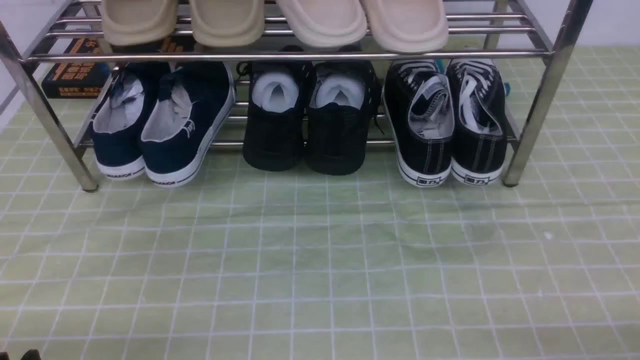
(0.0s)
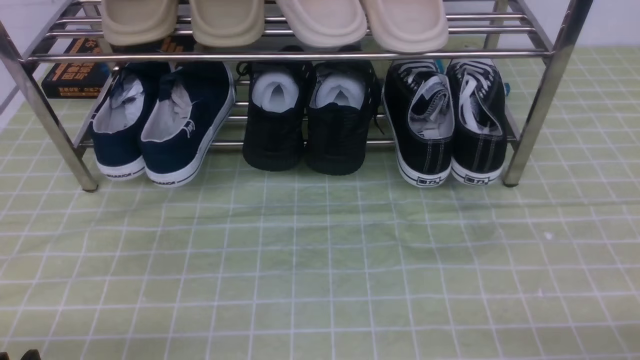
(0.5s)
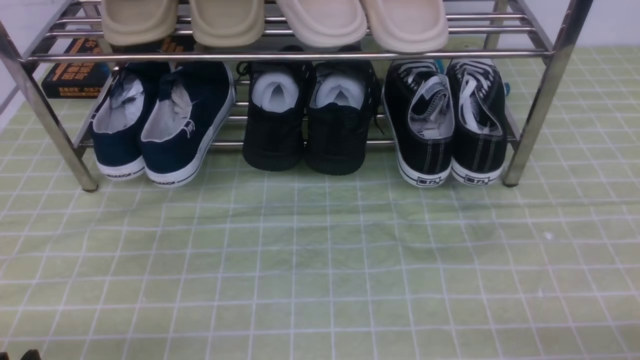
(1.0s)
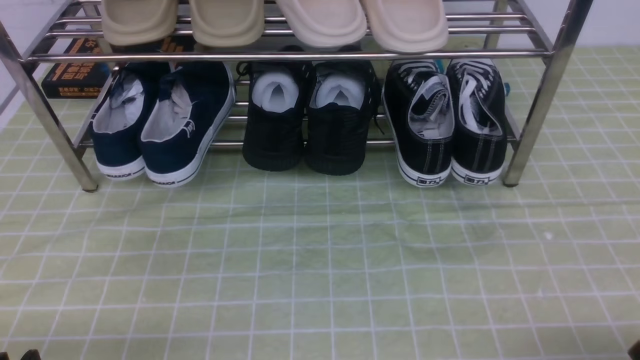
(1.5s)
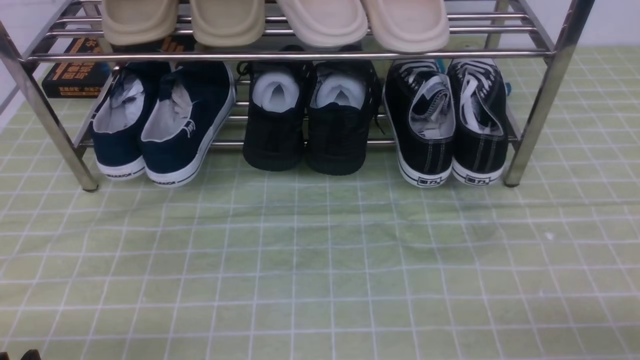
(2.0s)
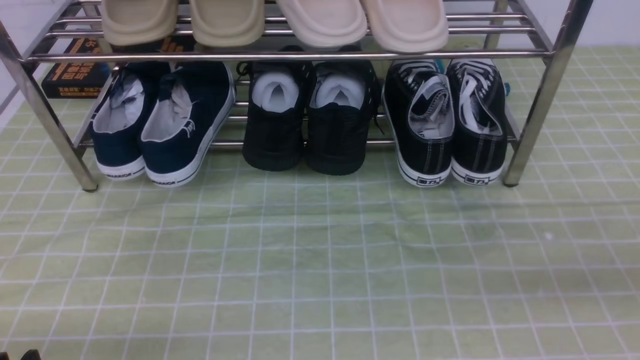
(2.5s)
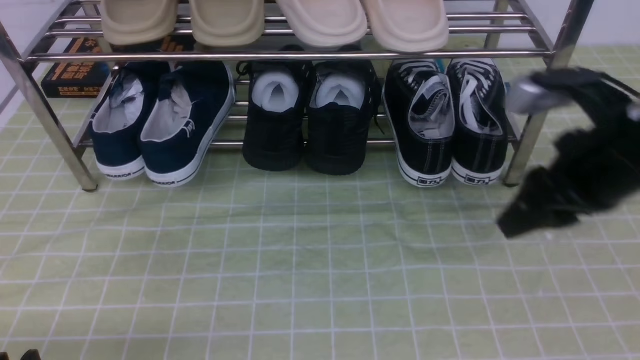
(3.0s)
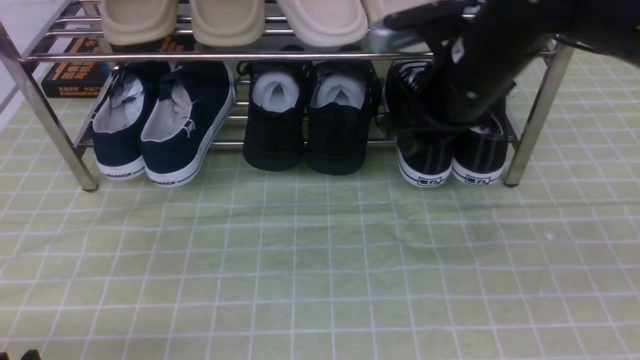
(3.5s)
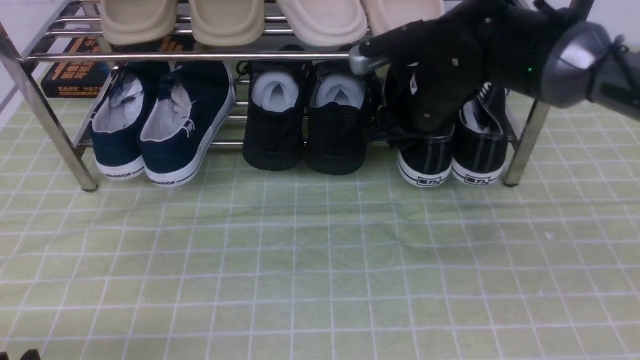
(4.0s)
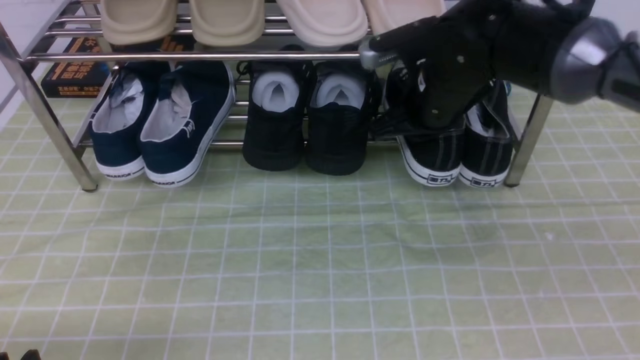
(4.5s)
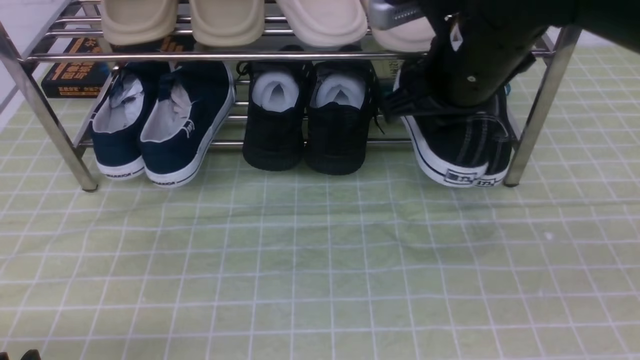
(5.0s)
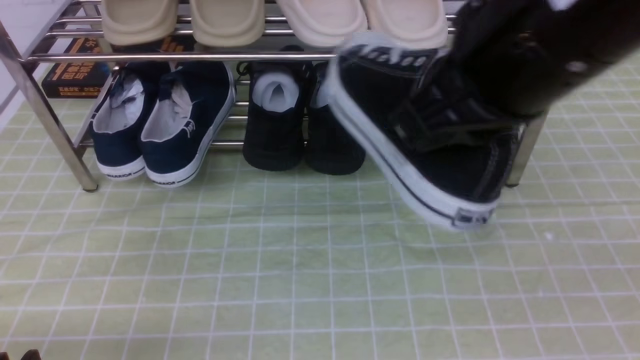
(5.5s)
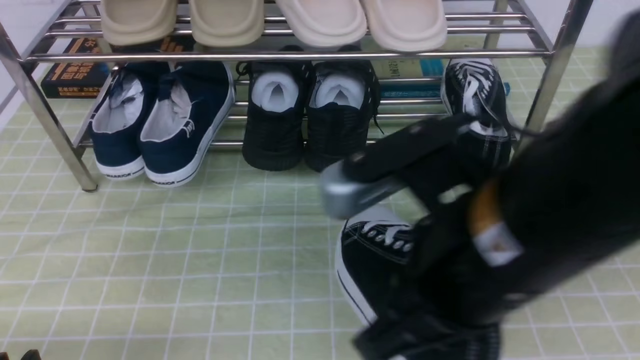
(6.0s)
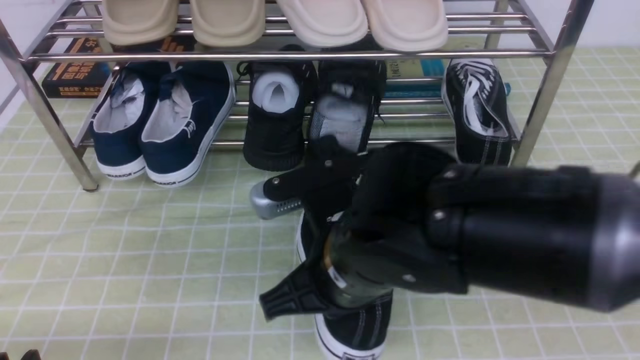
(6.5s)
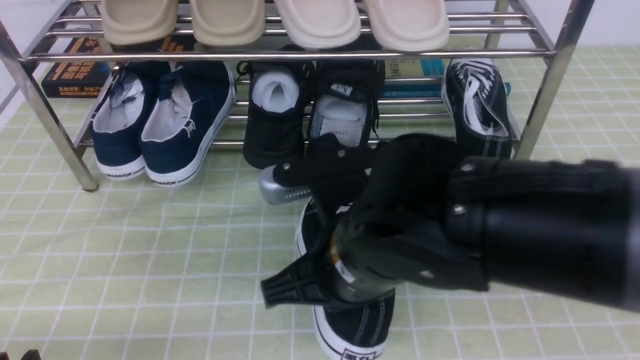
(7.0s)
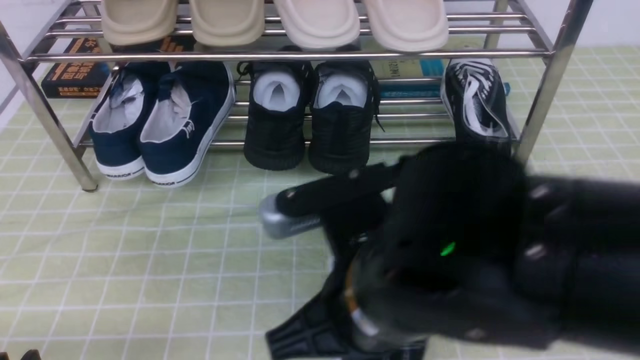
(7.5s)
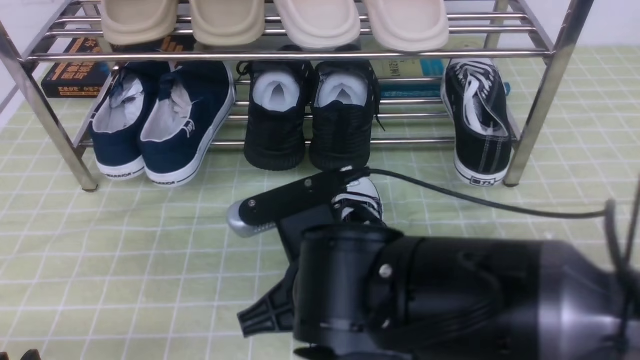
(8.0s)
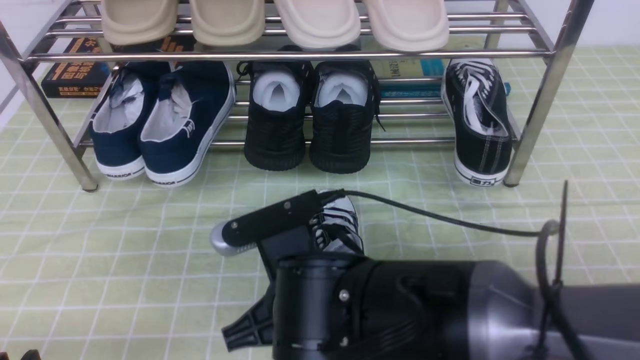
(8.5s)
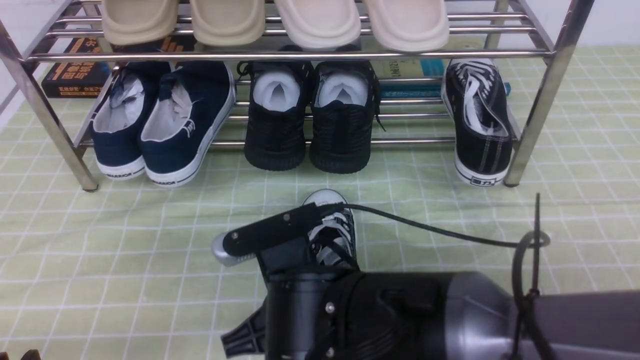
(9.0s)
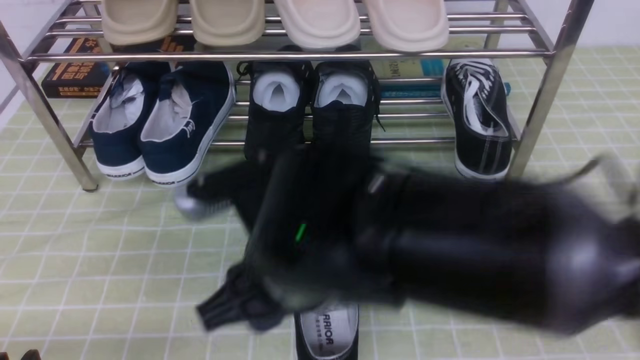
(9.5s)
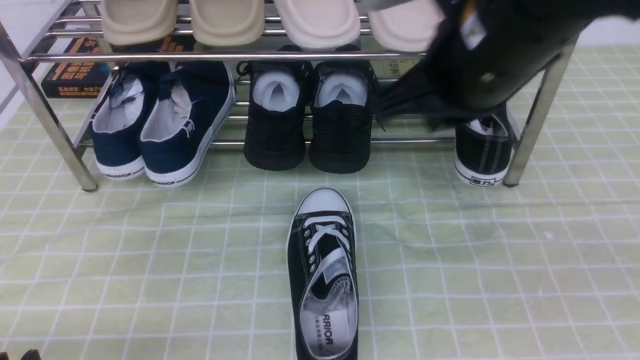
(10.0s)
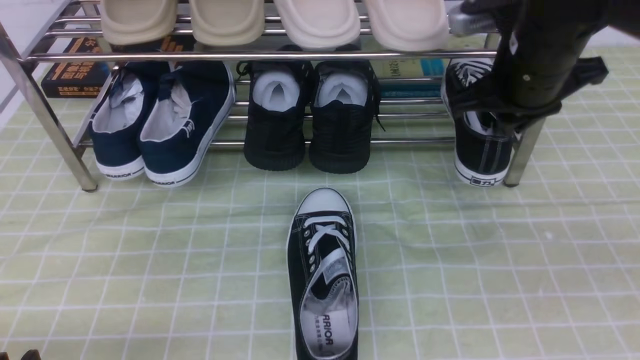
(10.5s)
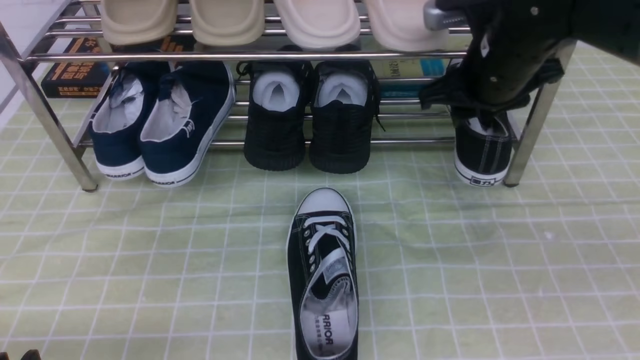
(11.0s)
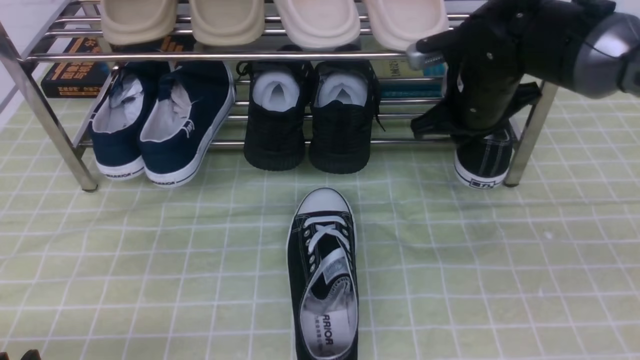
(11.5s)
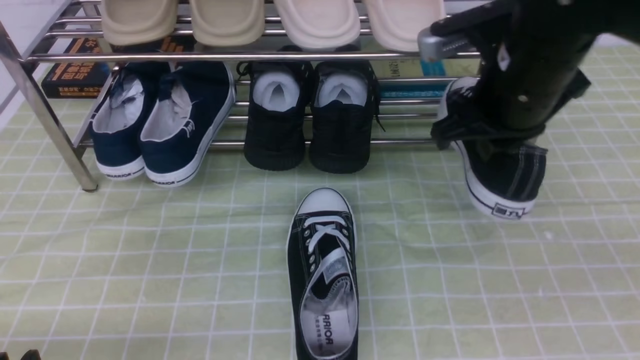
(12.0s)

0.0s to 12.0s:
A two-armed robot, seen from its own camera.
Step, 0.0s to 4.0s: use the right arm to clamp a shoe on the right side of the shoe rack.
Step, 4.5s to 9.5s: use the right arm to take out the clamped shoe from the shoe rack and put it down.
Step, 10.0s to 11.0s: use the right arm to clamp a shoe on the right side of the shoe rack.
2.0s to 4.0s: The right gripper heads forward and to the left, covering about 40 cm, and closes and opens again.
4.0s to 6.0s: The right gripper travels backward by about 25 cm, and closes its fingers.
6.0s to 8.0s: The right gripper moves downward and to the left, approximately 15 cm.
8.0s to 10.0s: The right gripper shifts approximately 20 cm upward, to the right and forward, and opens, then closes once more.
10.0s to 12.0s: The right gripper reaches roughly 10 cm forward, then returns, and opens, then closes again.

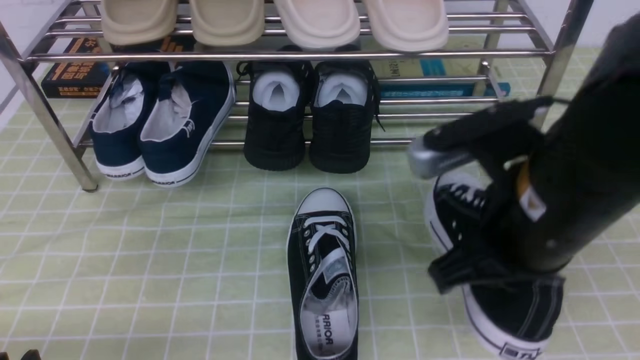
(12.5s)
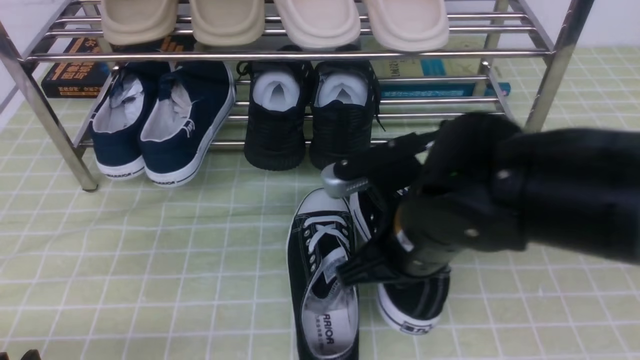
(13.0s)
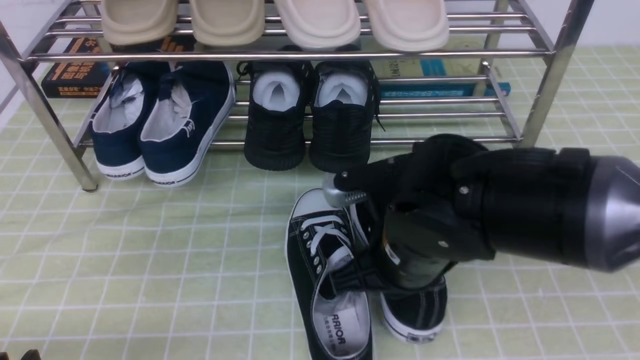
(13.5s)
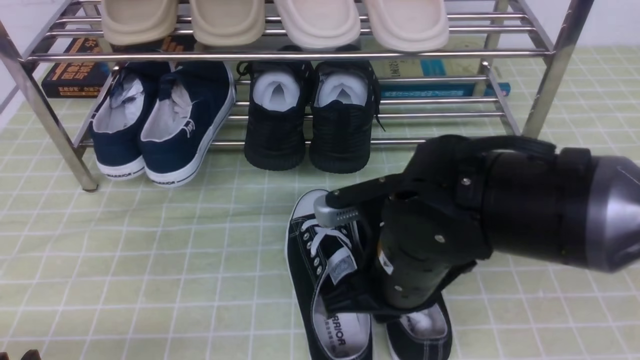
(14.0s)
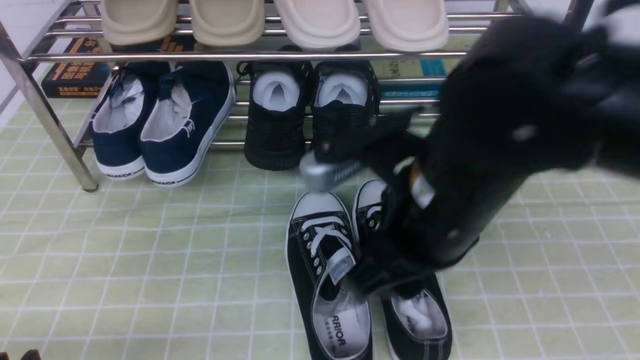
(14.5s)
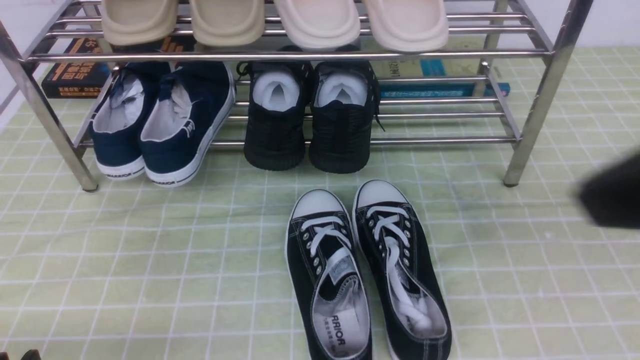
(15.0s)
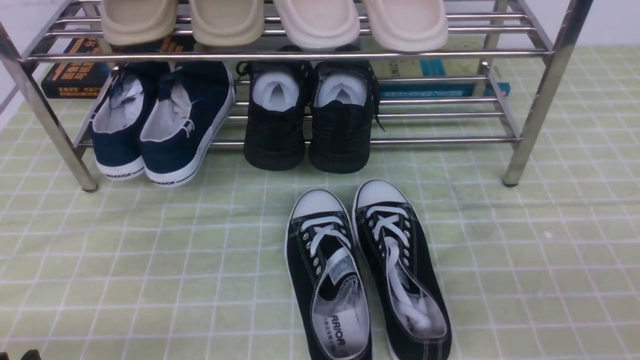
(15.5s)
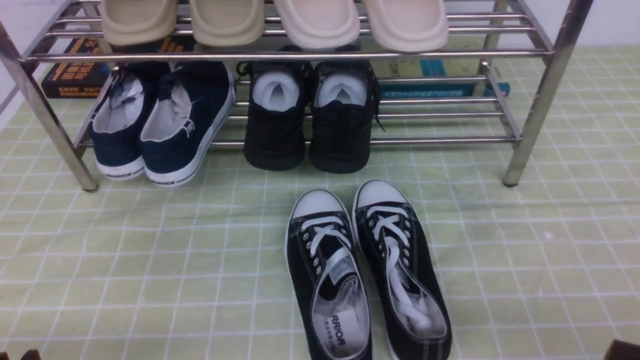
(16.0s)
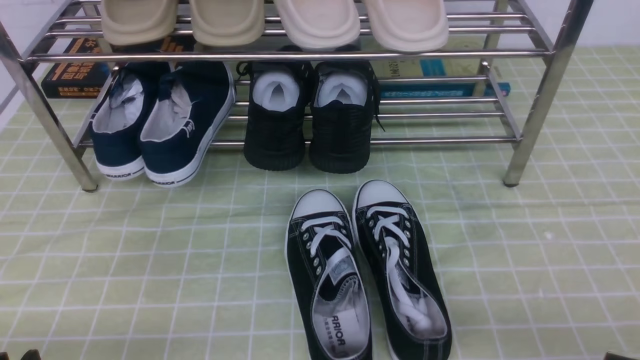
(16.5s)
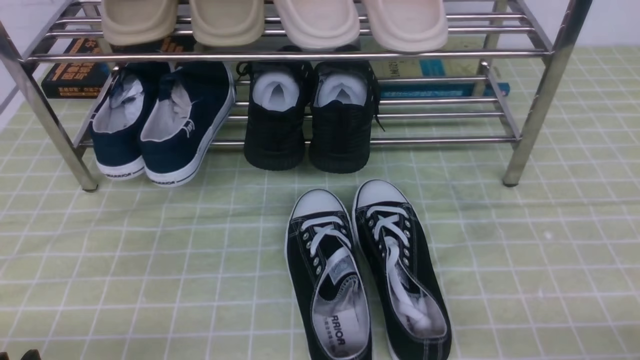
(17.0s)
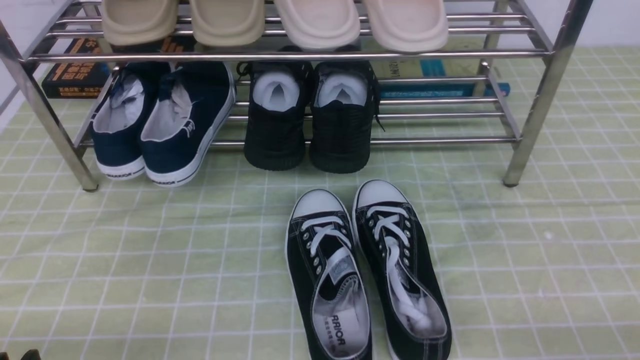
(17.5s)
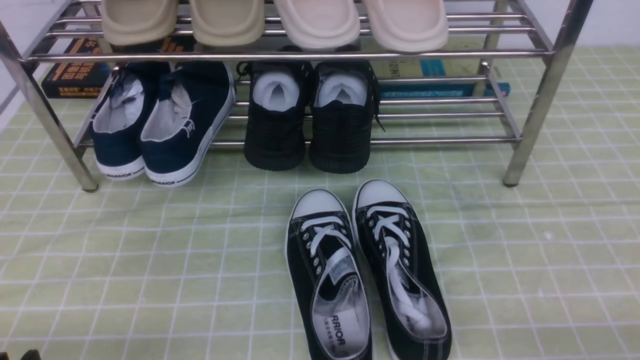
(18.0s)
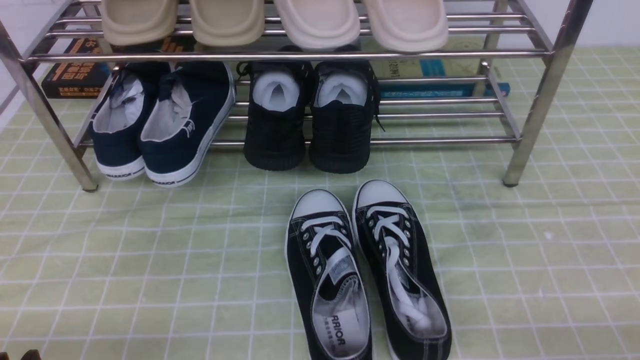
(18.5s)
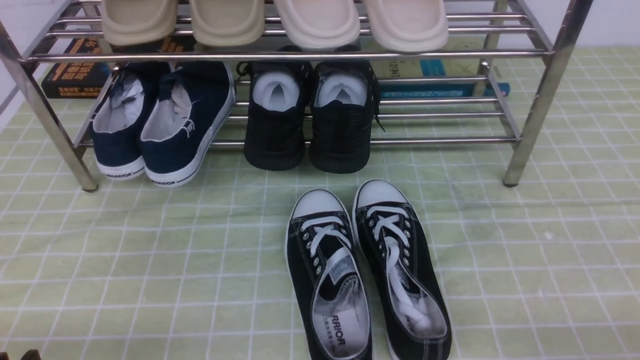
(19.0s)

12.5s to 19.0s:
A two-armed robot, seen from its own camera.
Step, 12.5s to 14.5s: use the right arm to take out the clamped shoe from the shoe rack and put it down.
12.5s to 14.5s: The right gripper travels downward and back again, approximately 10 cm each way, and opens.
14.5s to 17.0s: The right gripper heads to the right, downward and backward, covering roughly 30 cm, and closes.
